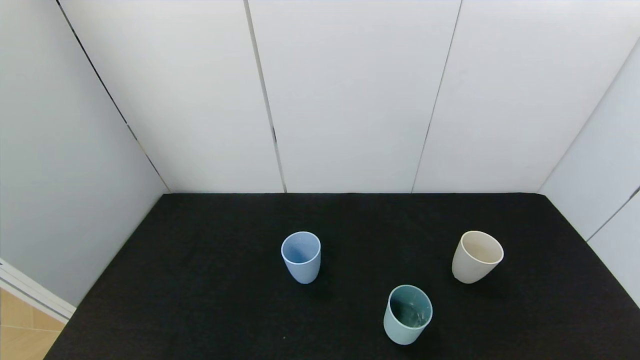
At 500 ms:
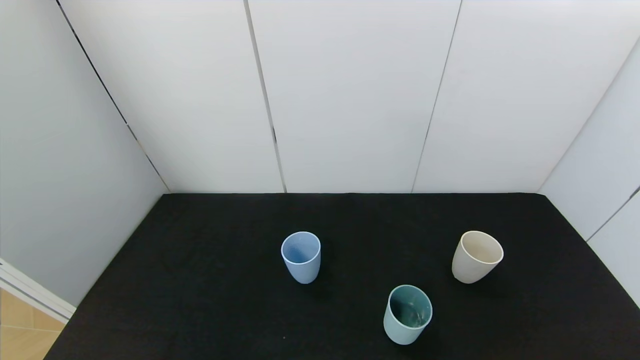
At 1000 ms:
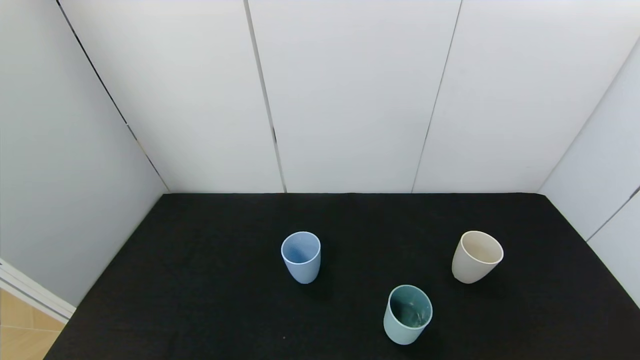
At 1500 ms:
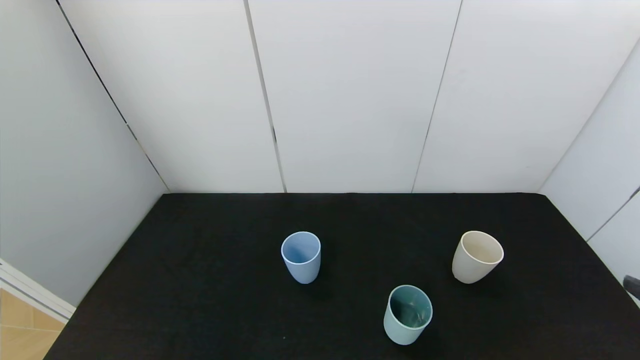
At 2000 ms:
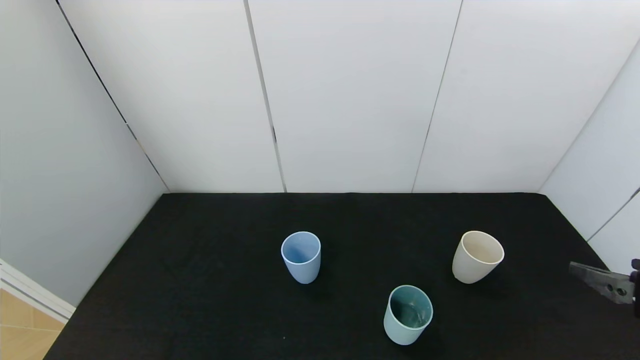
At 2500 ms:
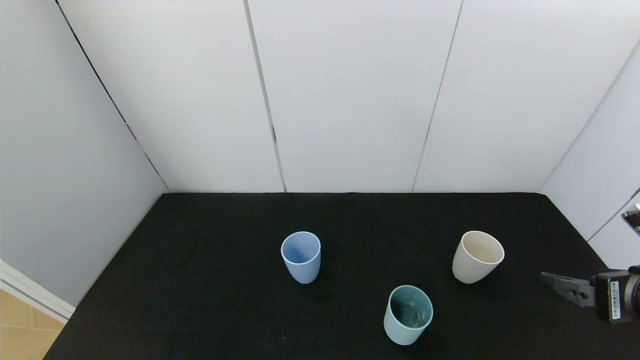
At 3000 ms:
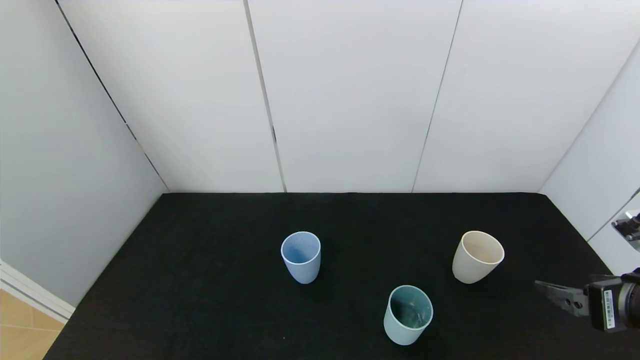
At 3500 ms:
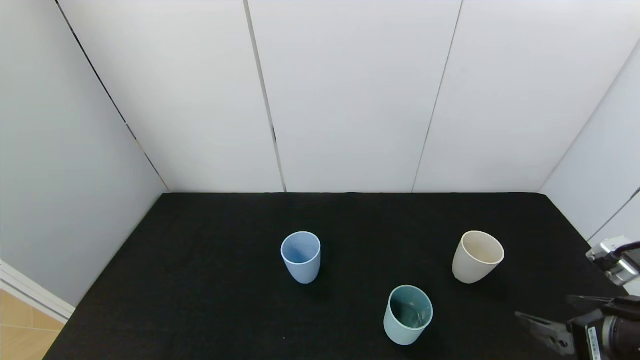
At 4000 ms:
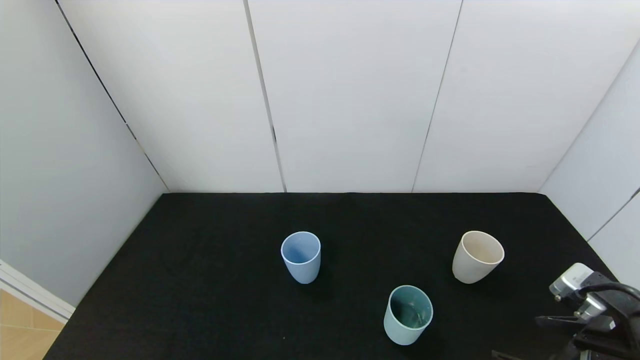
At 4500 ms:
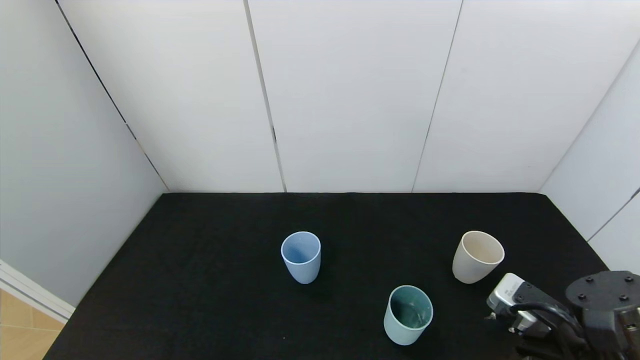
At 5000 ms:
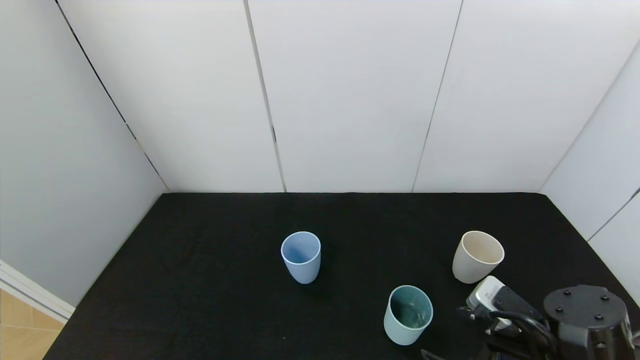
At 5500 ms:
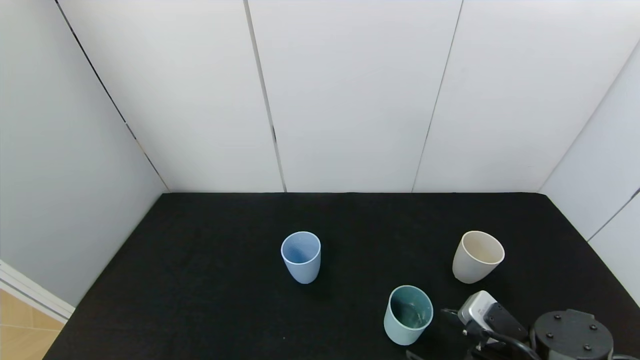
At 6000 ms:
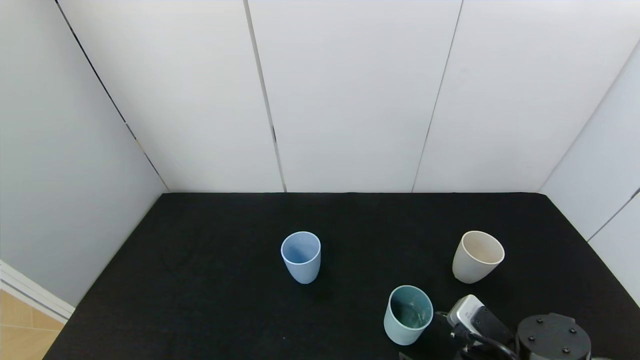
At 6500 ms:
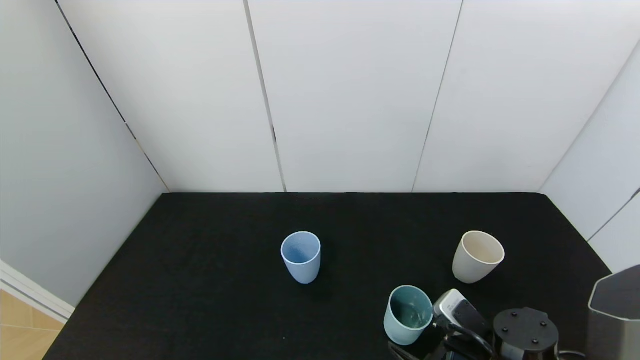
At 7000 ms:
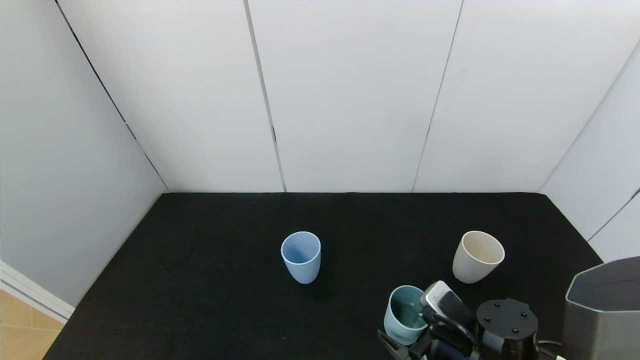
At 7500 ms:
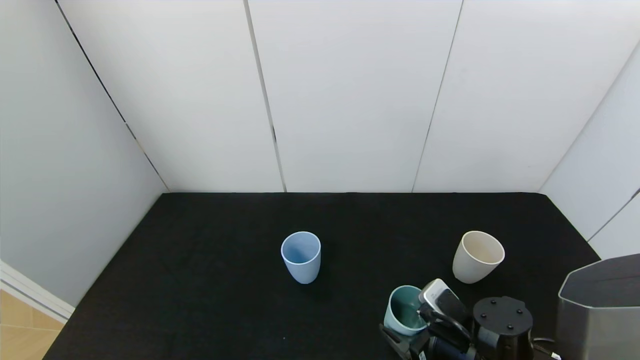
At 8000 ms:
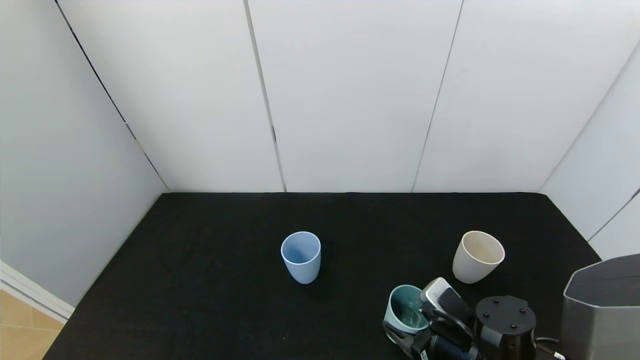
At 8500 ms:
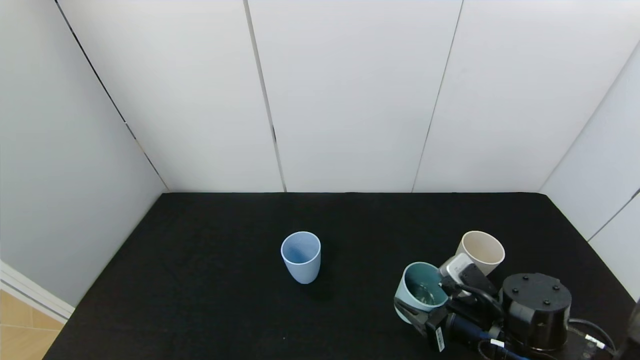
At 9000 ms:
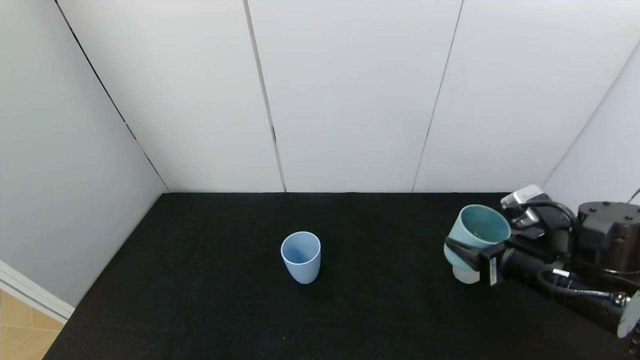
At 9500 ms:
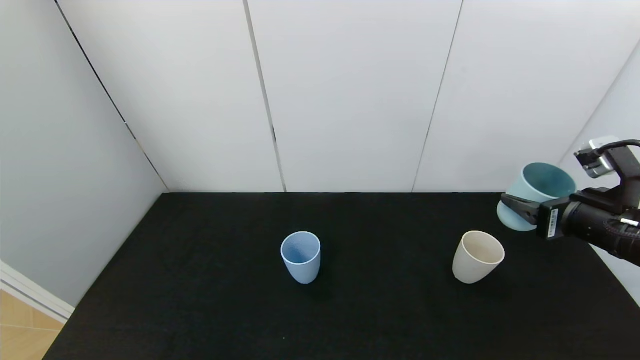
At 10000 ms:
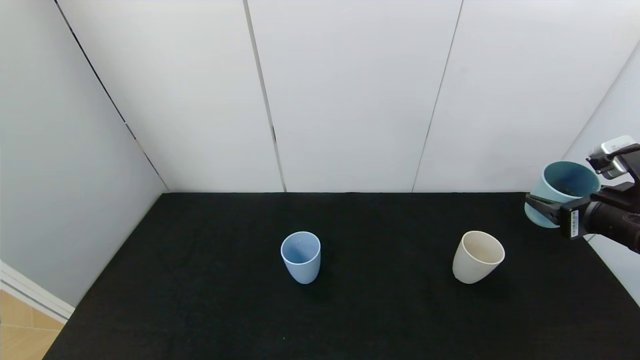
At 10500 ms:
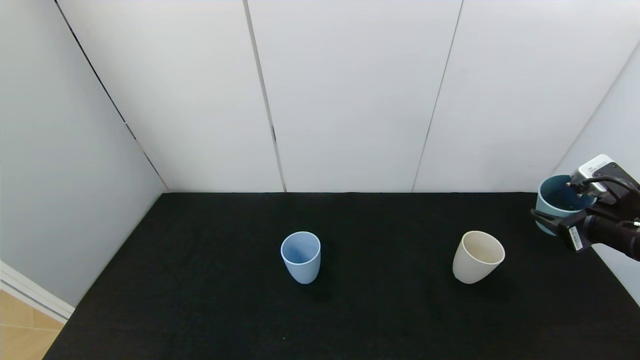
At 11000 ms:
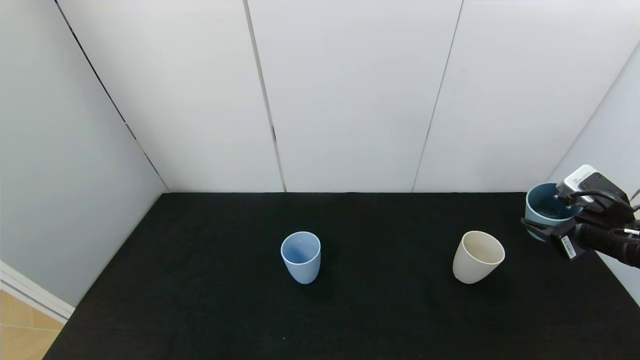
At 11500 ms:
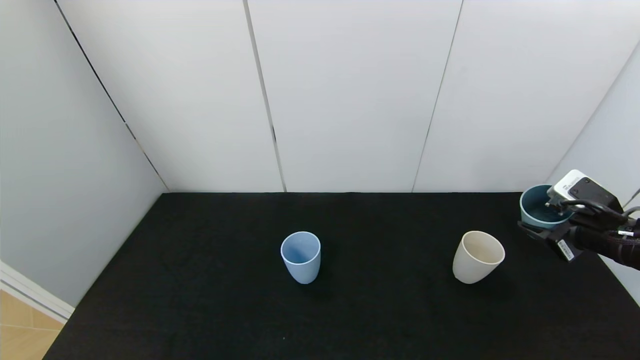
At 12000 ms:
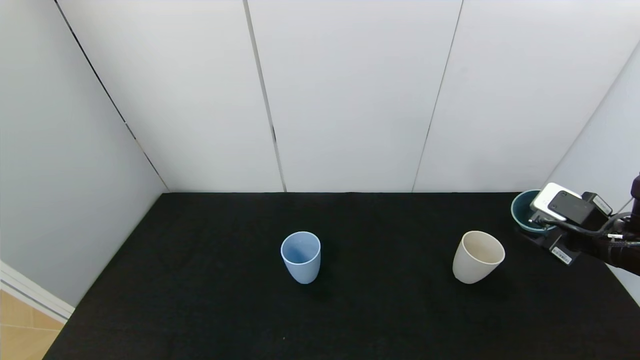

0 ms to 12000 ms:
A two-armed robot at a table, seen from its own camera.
Task of the whole recording: use the gripper to pour the water into the other two cups on black table.
Step, 0 ms to 7500 ms: Grasp the green cup with the right gripper.
0 ms to 2000 ms: The right gripper shifts roughly 20 cm forward and upward.
2000 ms to 4000 ms: The right gripper goes roughly 10 cm to the left and downward.
4000 ms to 6000 ms: The right gripper heads downward and to the left, covering roughly 10 cm.
6000 ms to 8000 ms: The right gripper closes up.
8000 ms to 10000 ms: The right gripper travels upward and to the right by about 25 cm.

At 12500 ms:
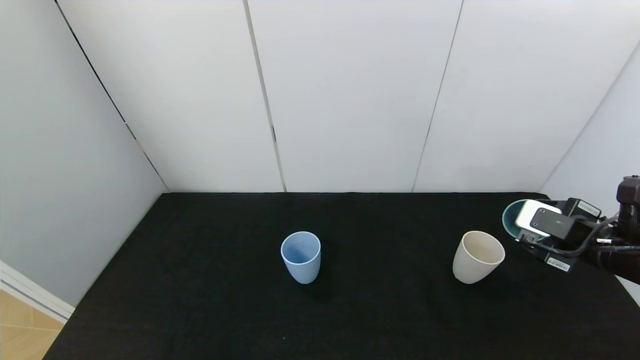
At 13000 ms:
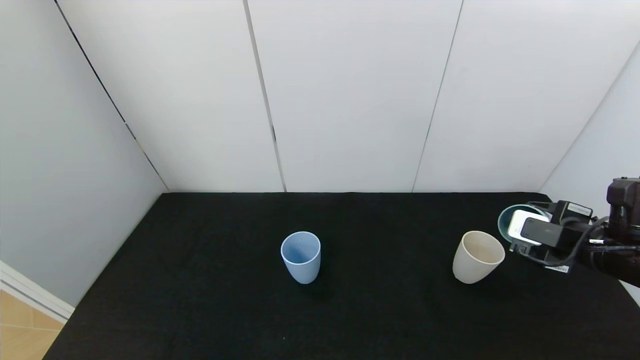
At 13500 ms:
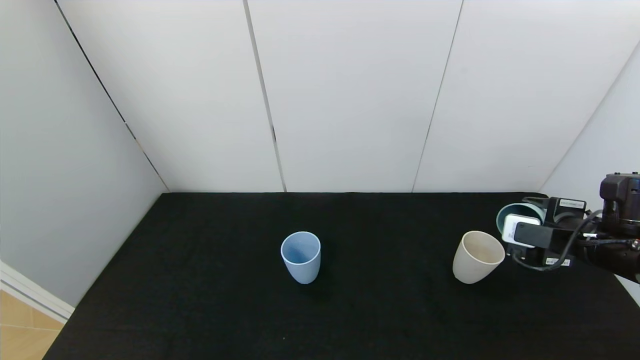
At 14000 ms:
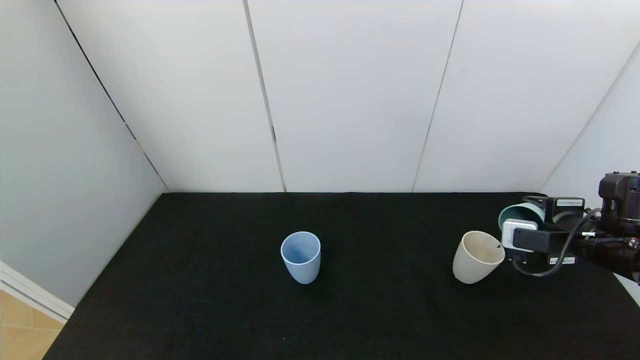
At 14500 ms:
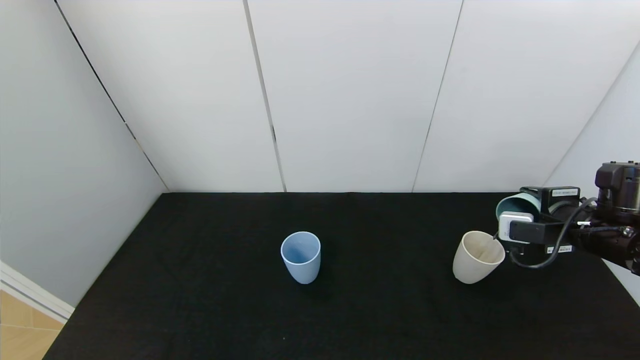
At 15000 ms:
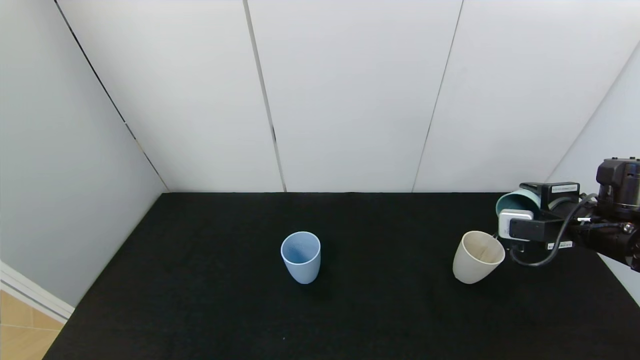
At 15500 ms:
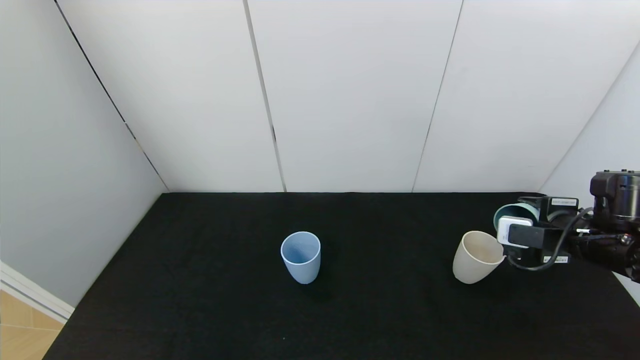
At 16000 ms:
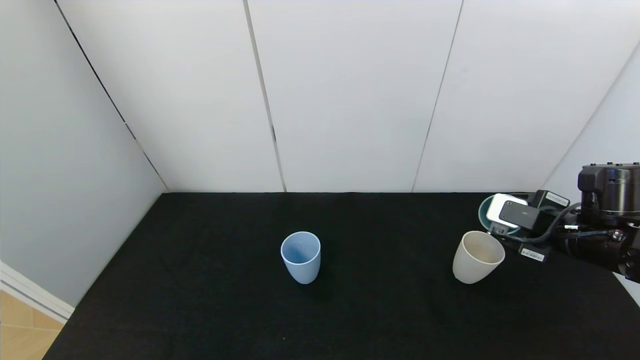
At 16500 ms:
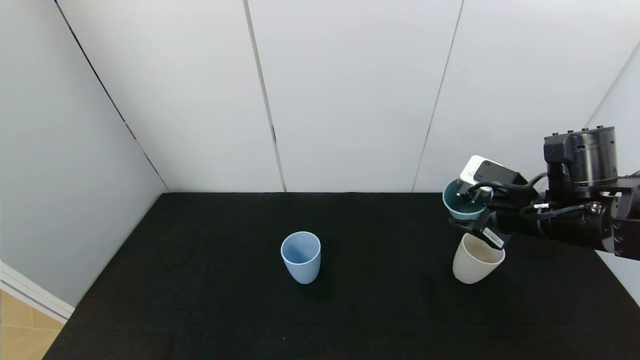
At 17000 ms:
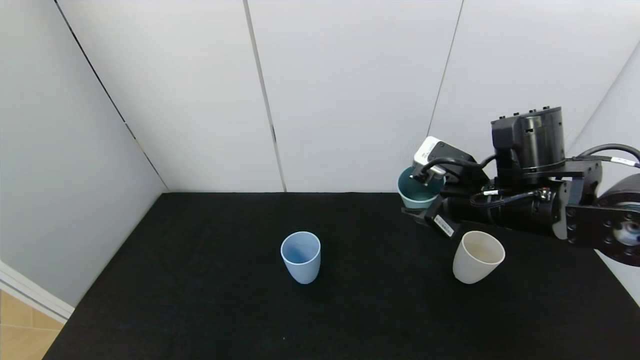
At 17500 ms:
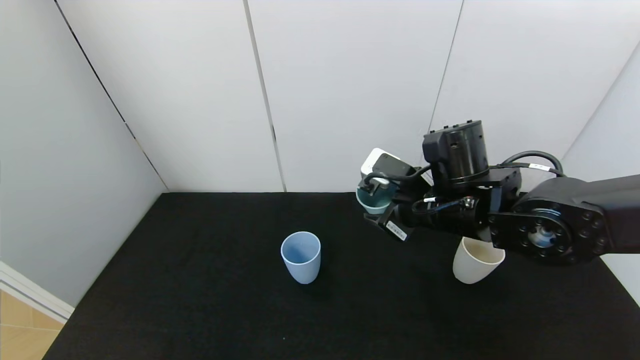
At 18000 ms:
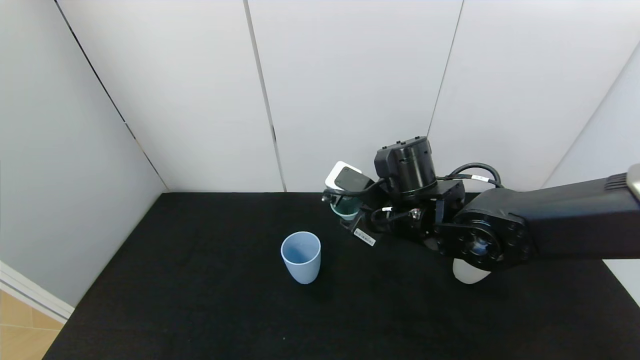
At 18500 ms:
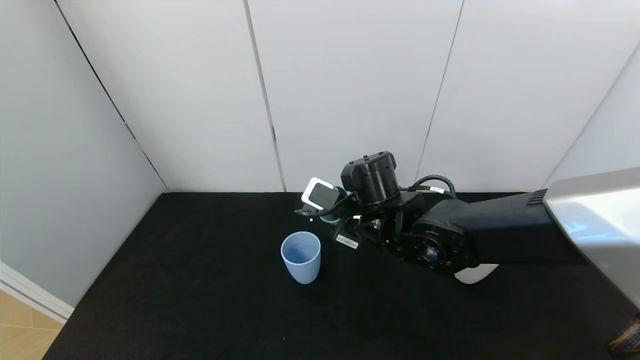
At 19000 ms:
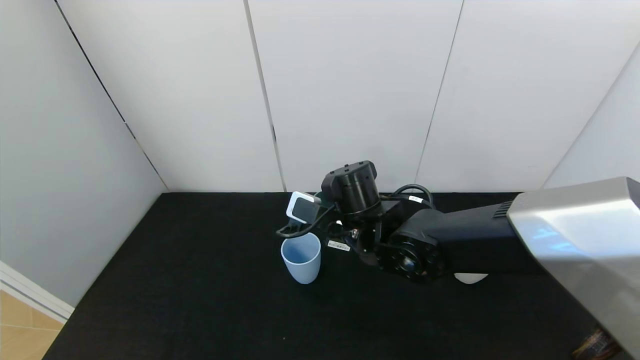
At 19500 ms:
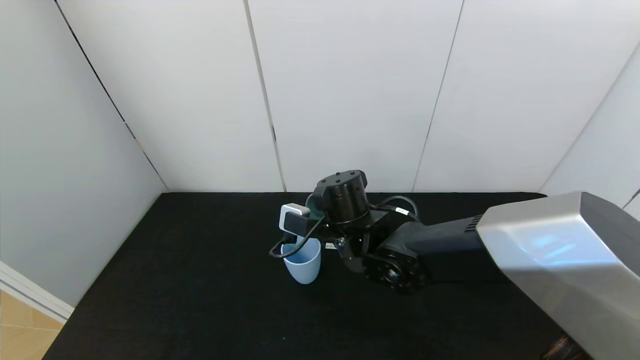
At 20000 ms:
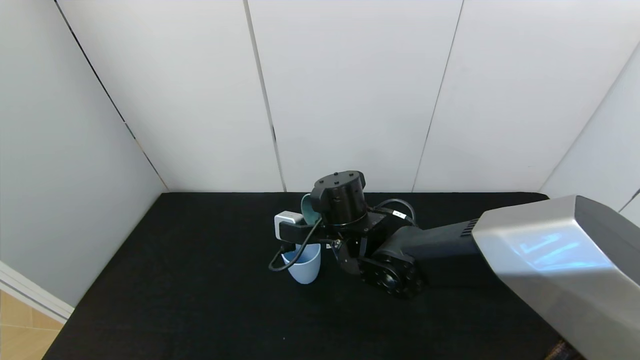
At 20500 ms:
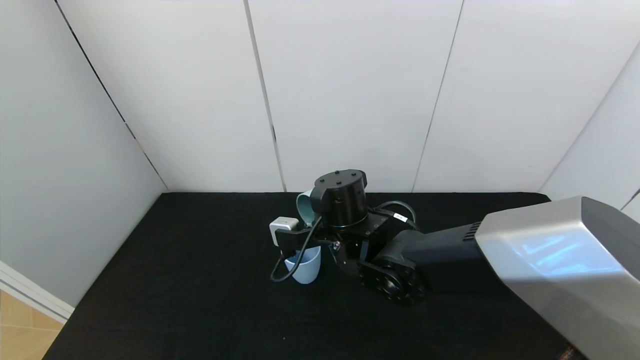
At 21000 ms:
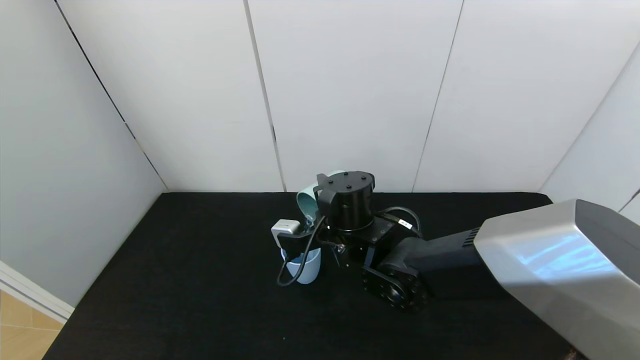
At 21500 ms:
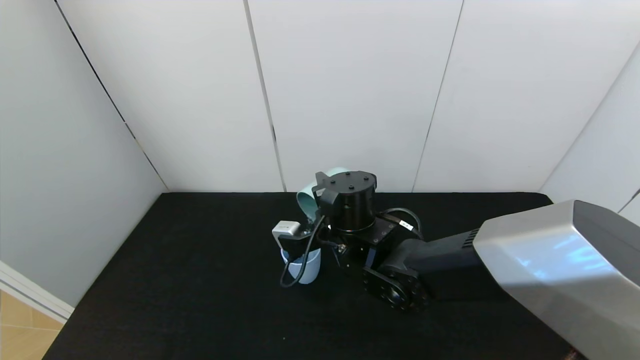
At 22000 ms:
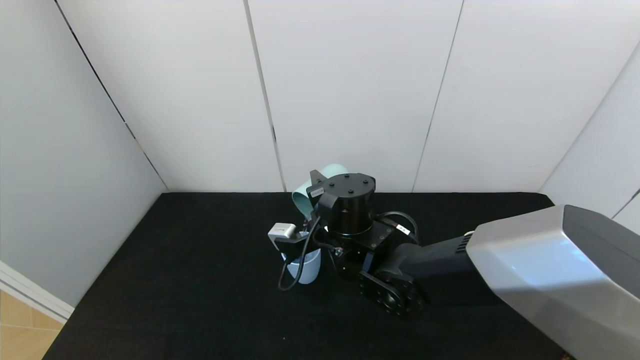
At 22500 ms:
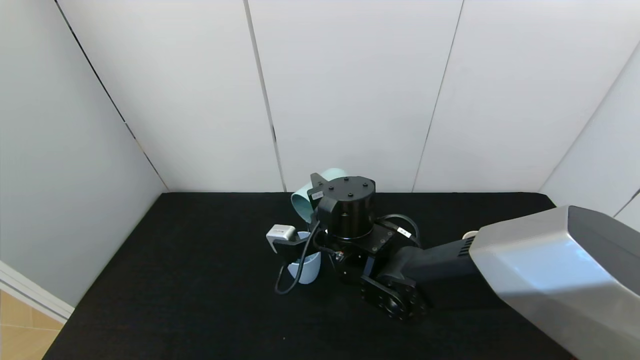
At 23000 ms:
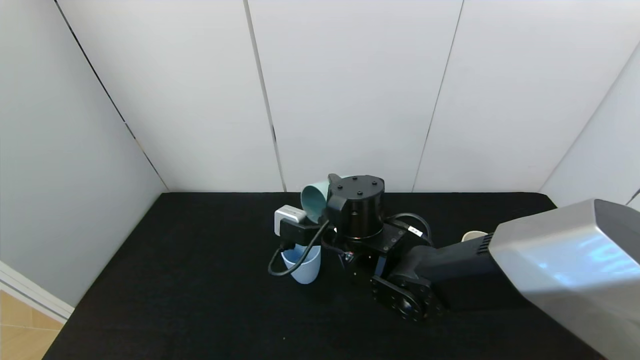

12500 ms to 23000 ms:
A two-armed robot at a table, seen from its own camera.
Task of the whole recording: use the gripper to pour the water into the other two cups on black table.
Step, 12500 ms to 16000 ms: Pour water from green cup to white cup with the right gripper.
14500 ms to 16500 ms: The right gripper travels to the left by roughly 10 cm.
16500 ms to 19000 ms: The right gripper heads to the left, covering approximately 20 cm.
